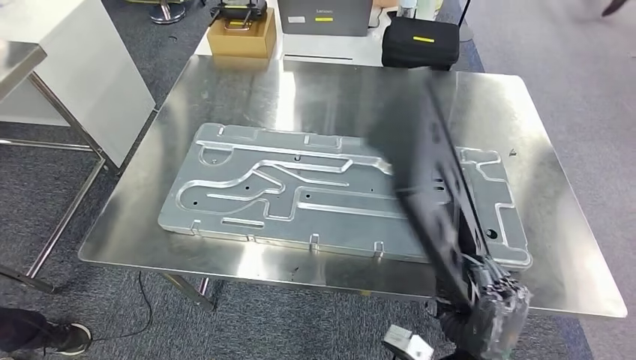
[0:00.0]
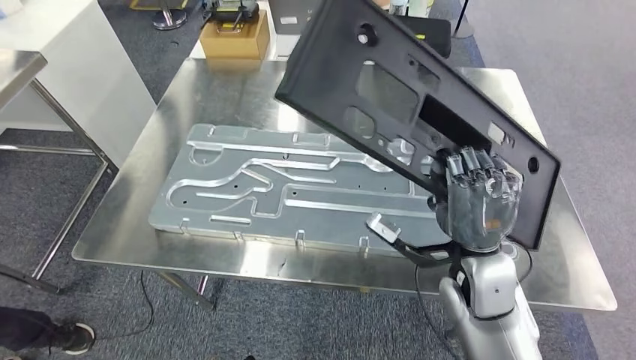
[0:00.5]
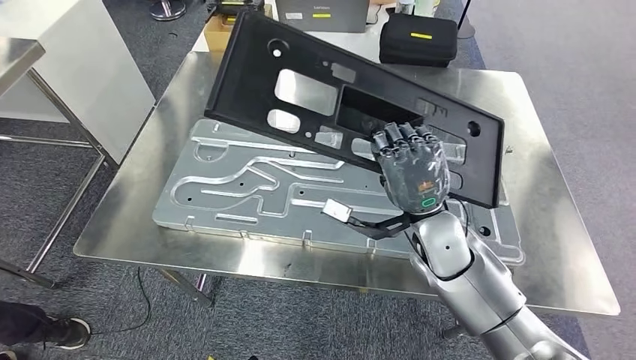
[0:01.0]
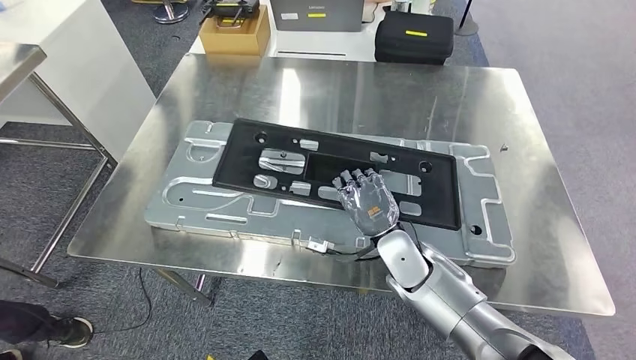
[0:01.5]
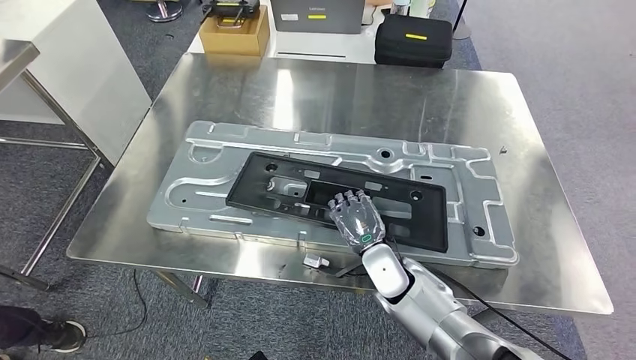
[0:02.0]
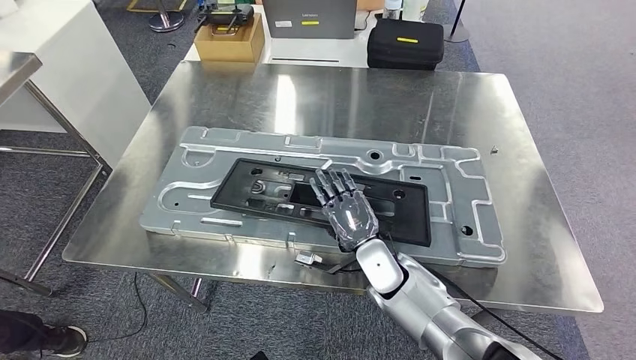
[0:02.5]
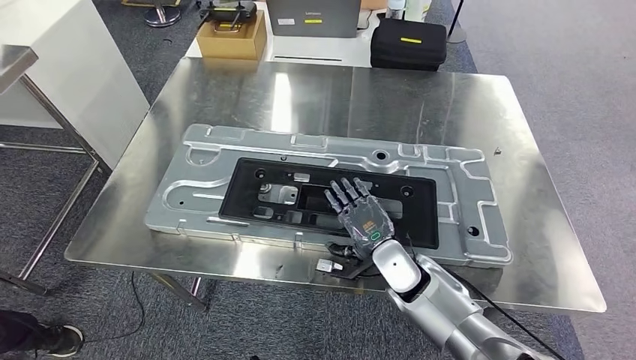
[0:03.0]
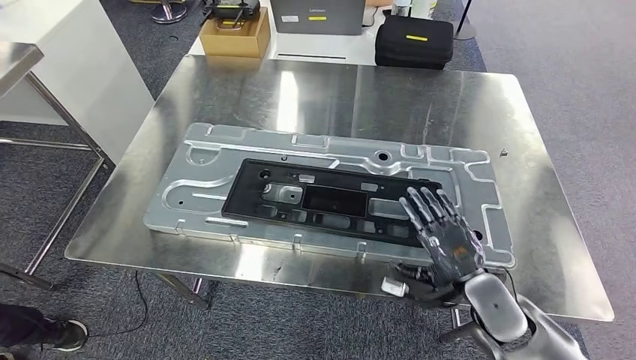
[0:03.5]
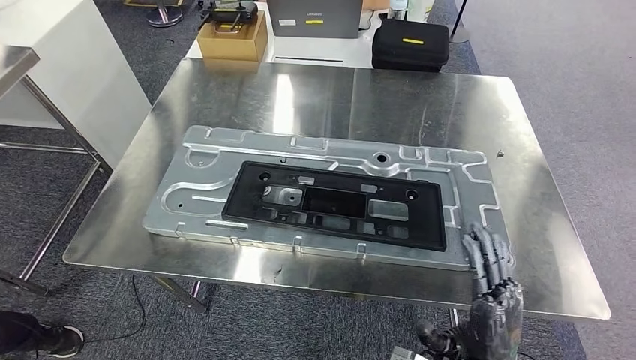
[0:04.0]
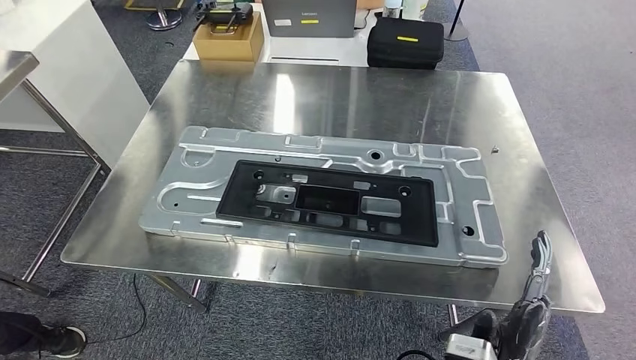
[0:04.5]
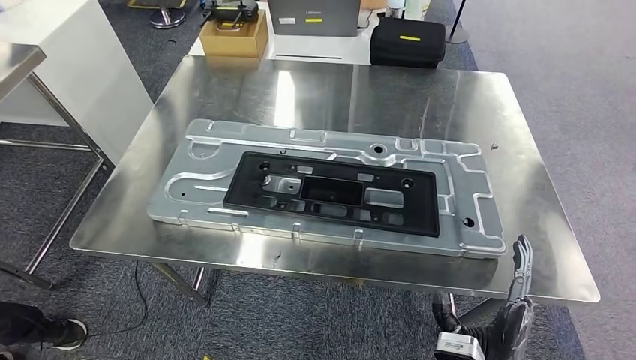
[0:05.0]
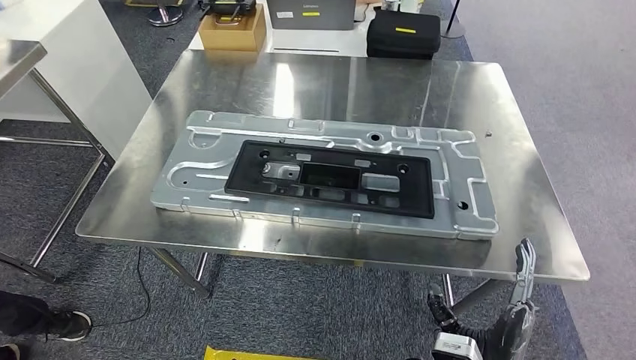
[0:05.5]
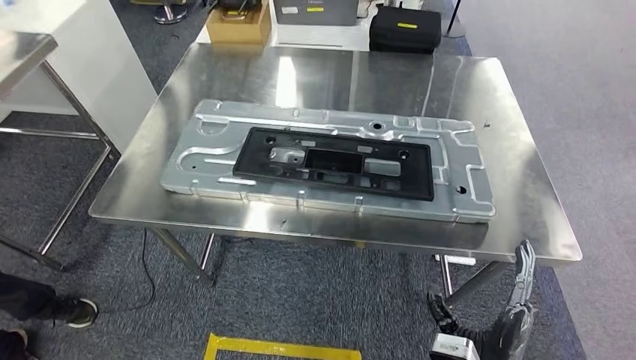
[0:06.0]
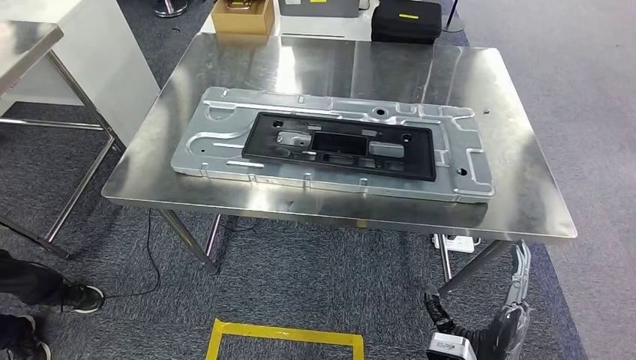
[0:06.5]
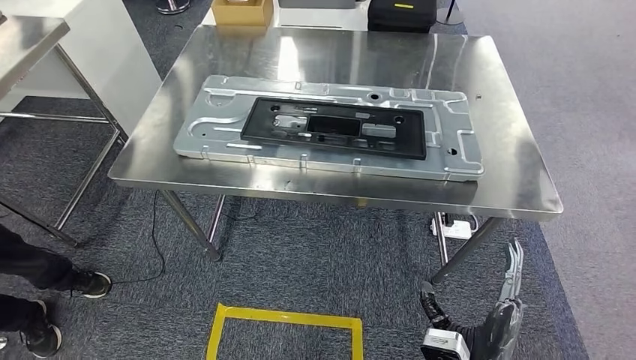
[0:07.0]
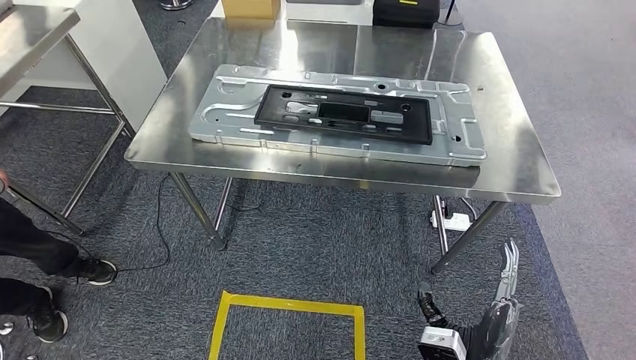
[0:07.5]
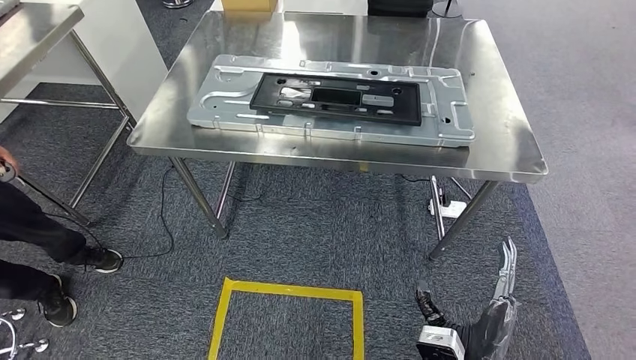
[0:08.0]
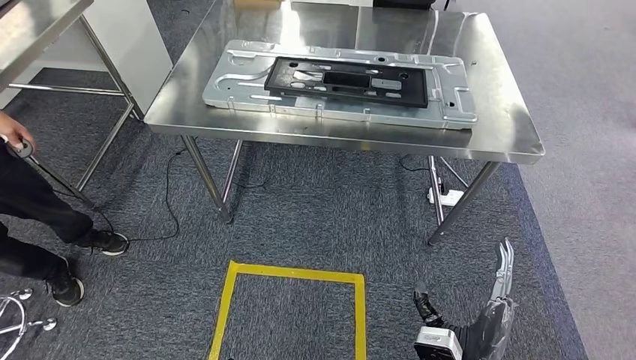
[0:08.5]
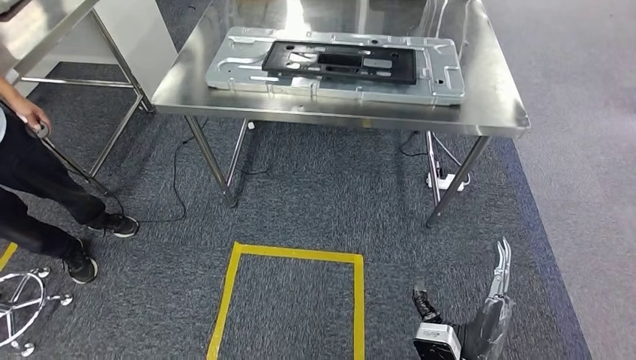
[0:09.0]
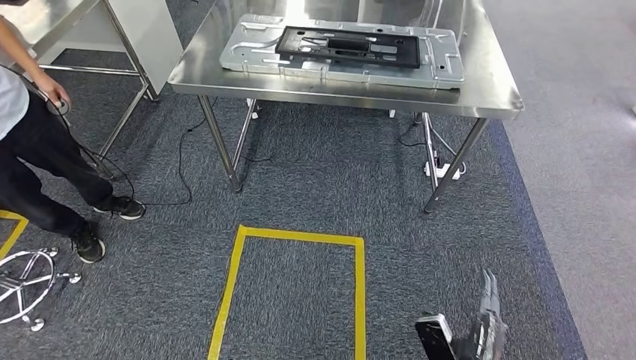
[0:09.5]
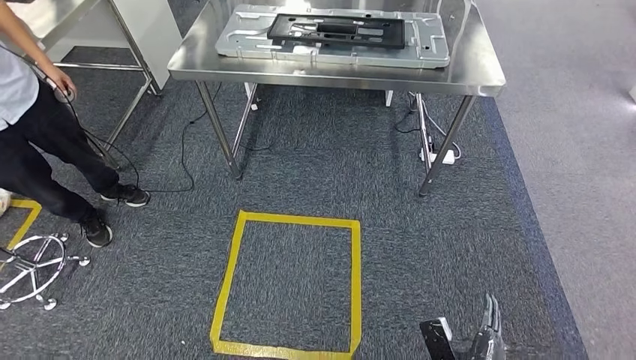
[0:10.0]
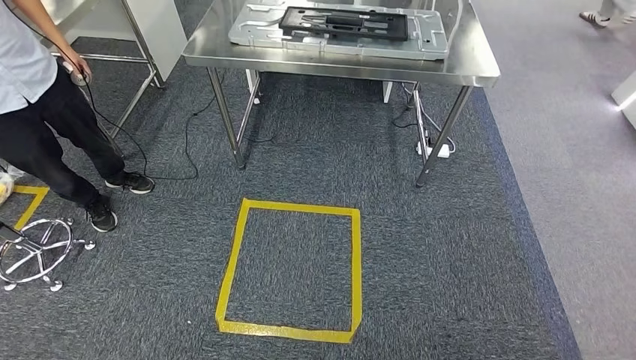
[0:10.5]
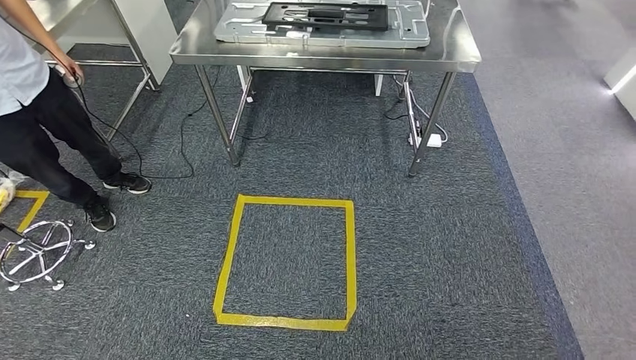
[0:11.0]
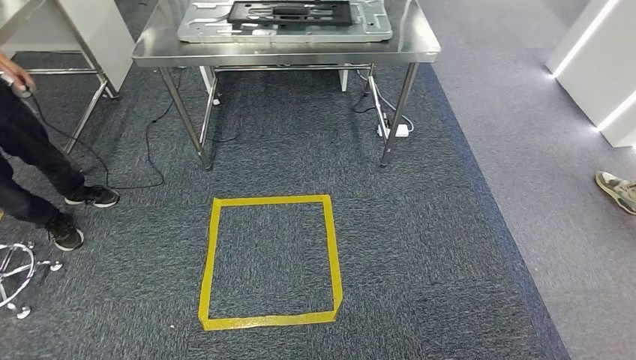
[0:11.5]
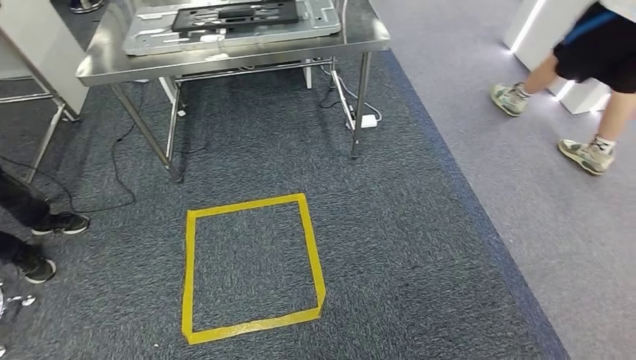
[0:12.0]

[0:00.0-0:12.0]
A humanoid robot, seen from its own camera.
Step, 0:00.0 to 0:03.5: Insert the large material into the corresponding slot on the workbench.

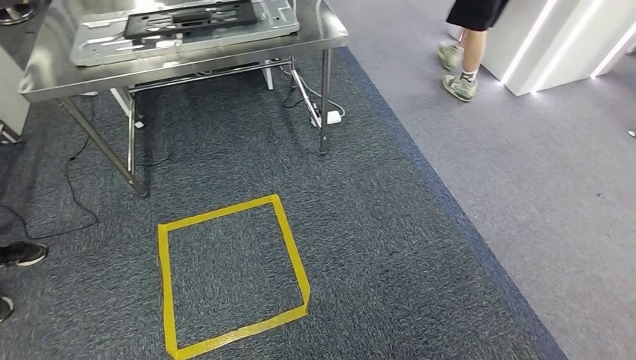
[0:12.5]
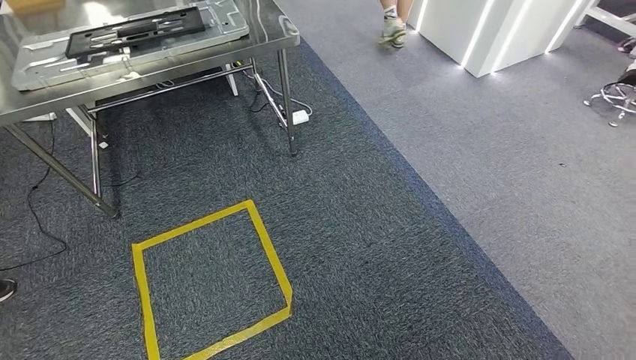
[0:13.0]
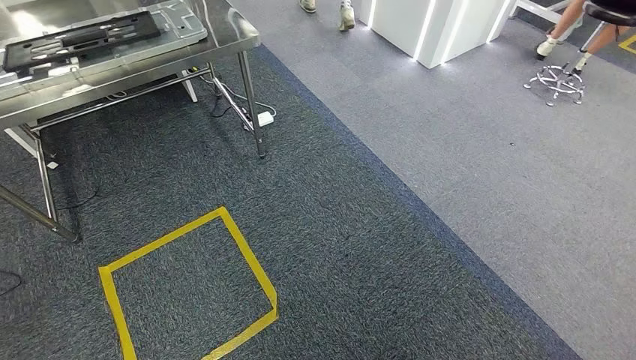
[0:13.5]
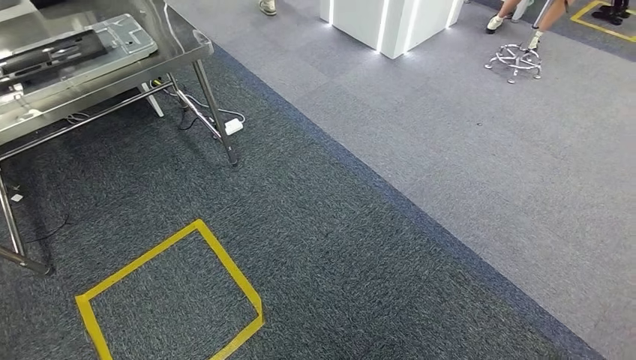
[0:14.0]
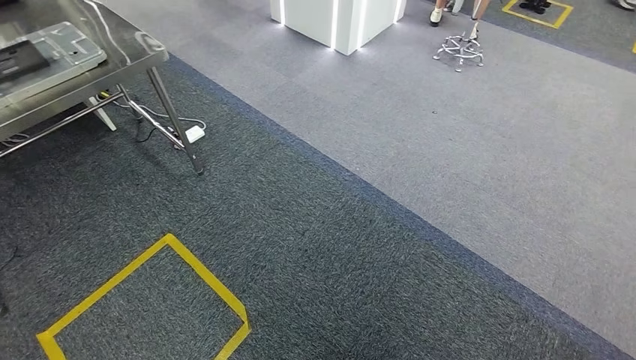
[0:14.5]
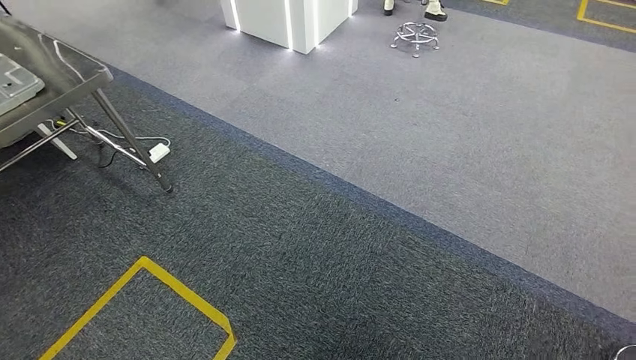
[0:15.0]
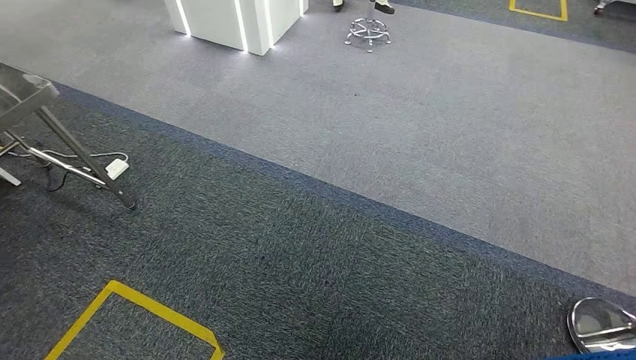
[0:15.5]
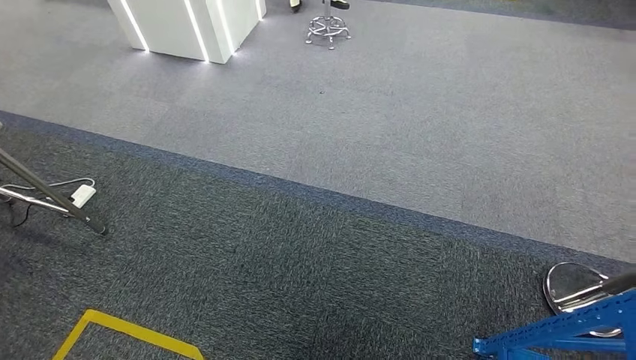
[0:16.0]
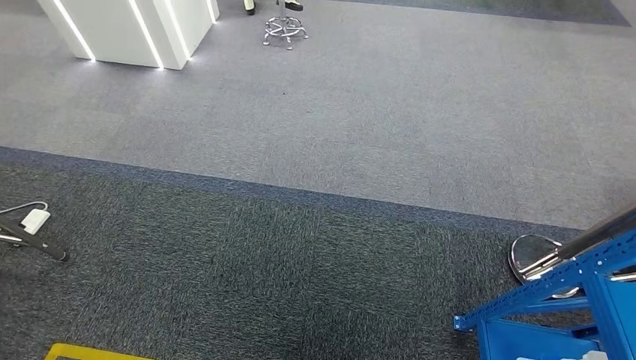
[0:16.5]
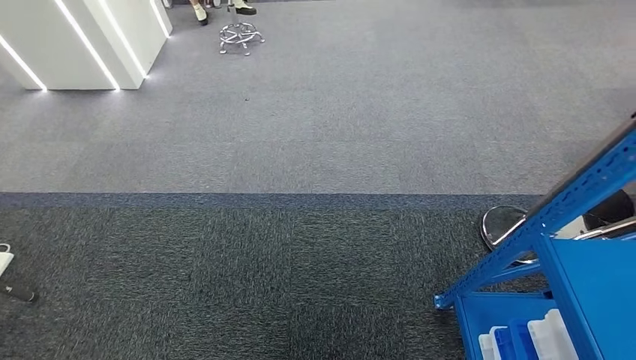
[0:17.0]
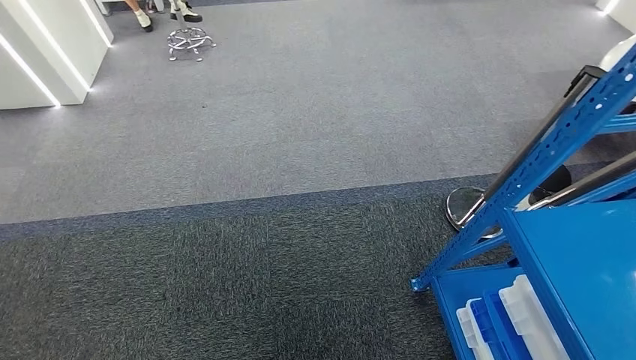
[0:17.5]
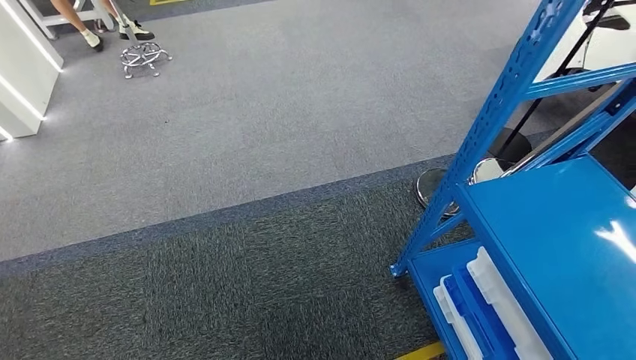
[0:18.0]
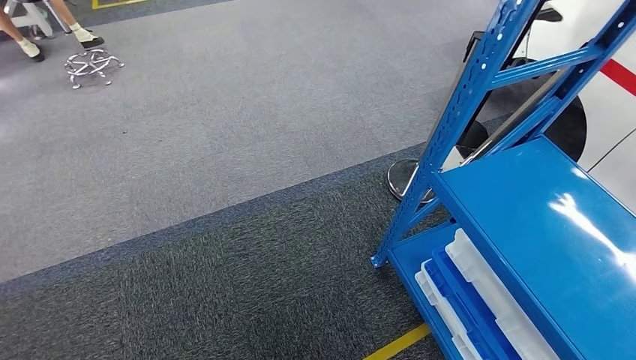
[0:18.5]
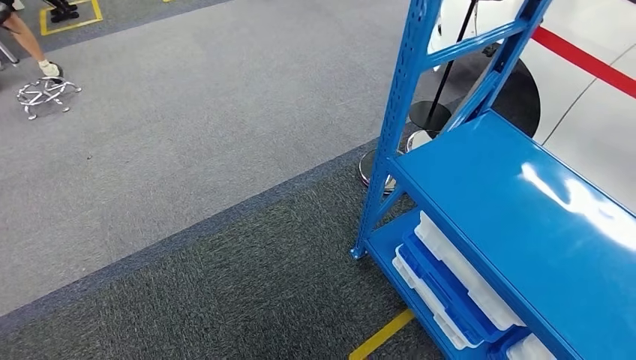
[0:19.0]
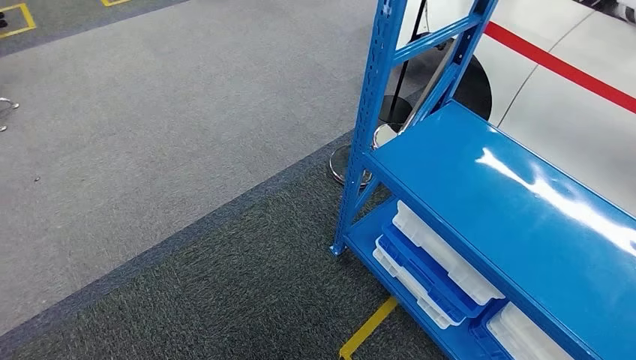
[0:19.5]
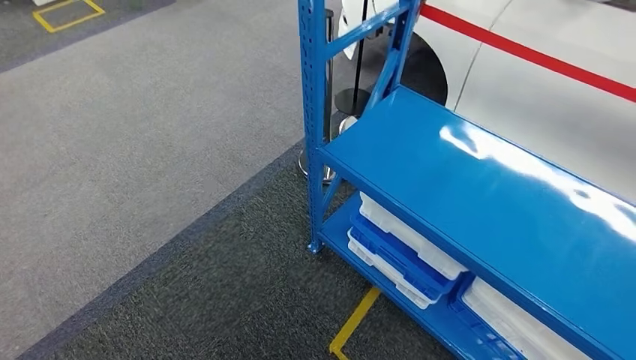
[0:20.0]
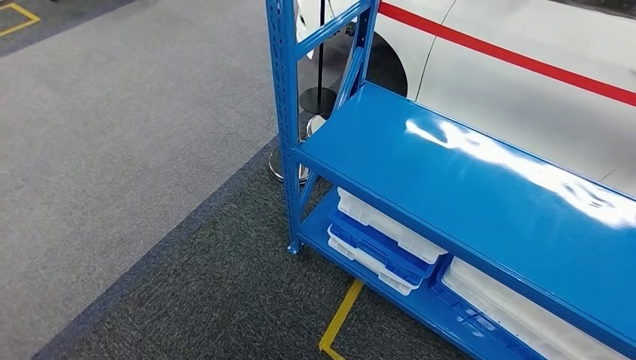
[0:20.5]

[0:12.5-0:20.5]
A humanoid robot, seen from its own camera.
Step, 0:12.5 to 0:20.5: Move to the initial position of the shelf.
